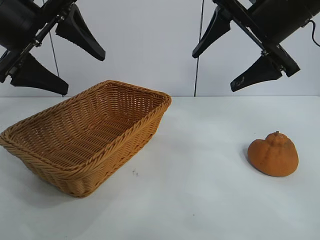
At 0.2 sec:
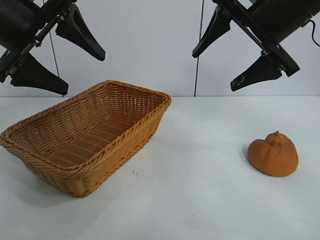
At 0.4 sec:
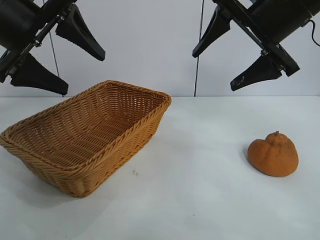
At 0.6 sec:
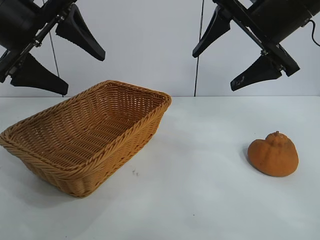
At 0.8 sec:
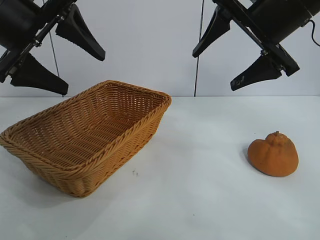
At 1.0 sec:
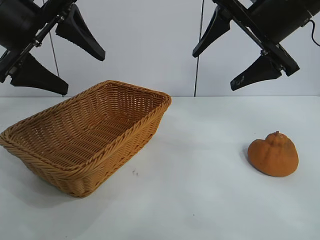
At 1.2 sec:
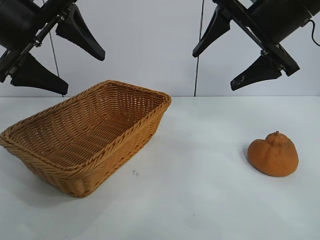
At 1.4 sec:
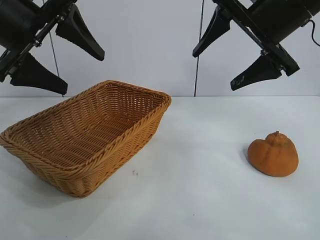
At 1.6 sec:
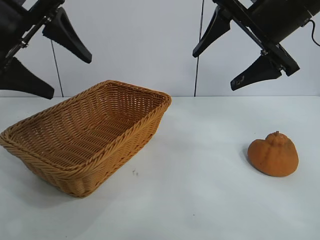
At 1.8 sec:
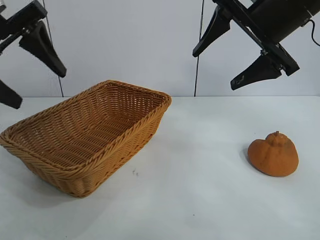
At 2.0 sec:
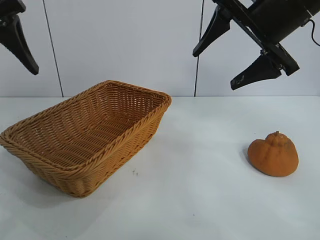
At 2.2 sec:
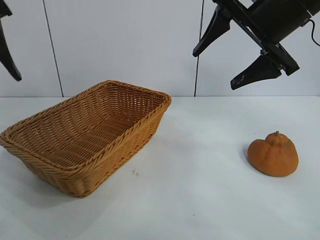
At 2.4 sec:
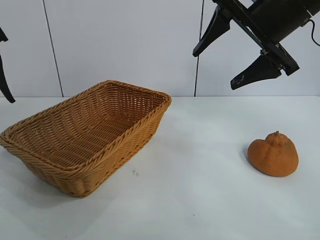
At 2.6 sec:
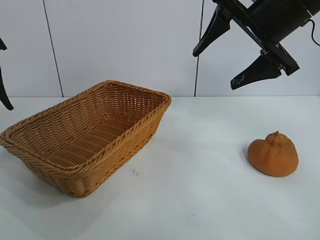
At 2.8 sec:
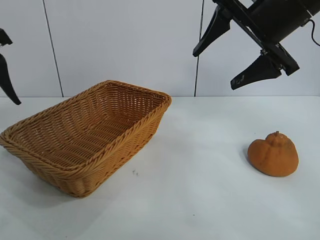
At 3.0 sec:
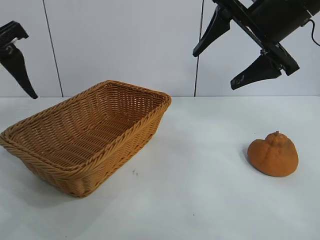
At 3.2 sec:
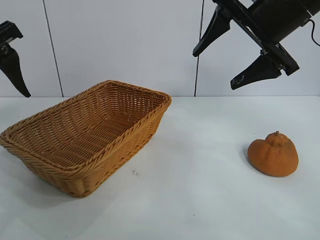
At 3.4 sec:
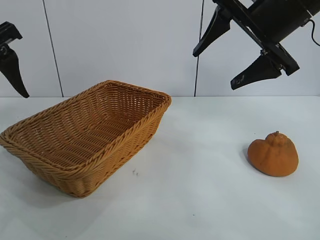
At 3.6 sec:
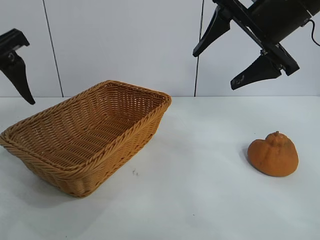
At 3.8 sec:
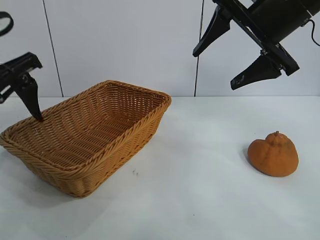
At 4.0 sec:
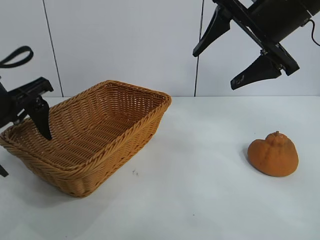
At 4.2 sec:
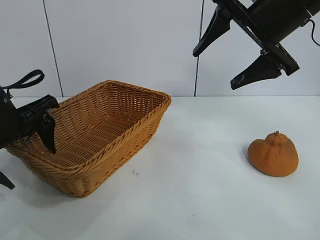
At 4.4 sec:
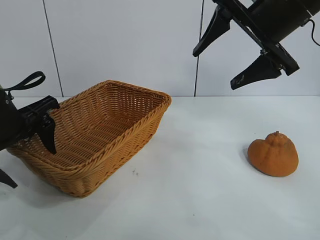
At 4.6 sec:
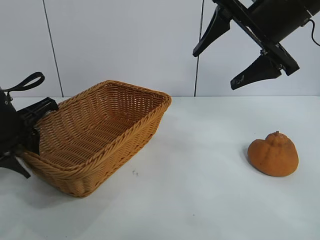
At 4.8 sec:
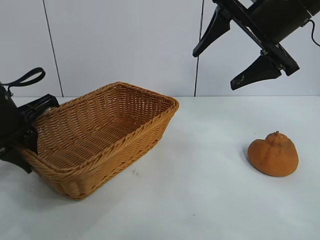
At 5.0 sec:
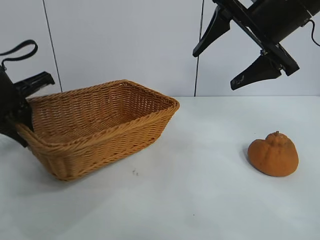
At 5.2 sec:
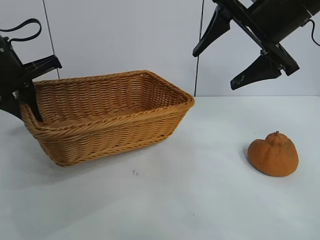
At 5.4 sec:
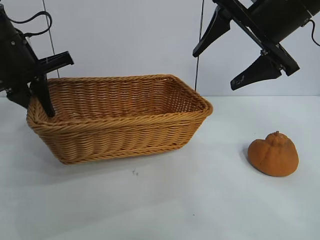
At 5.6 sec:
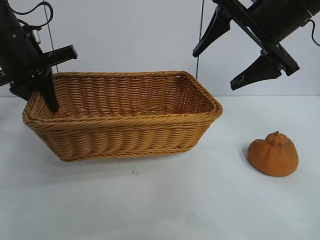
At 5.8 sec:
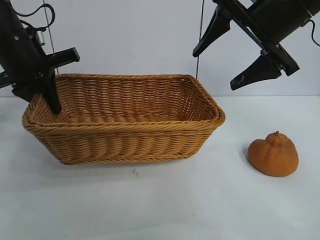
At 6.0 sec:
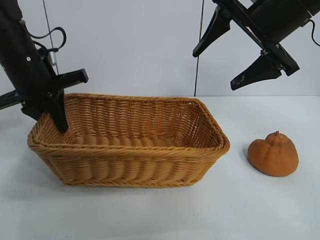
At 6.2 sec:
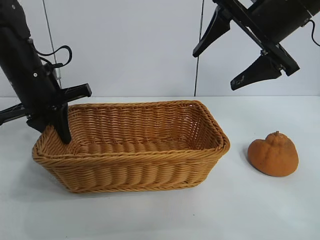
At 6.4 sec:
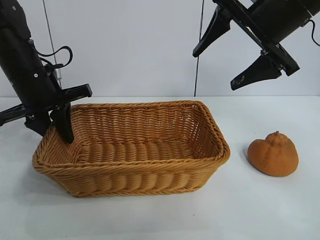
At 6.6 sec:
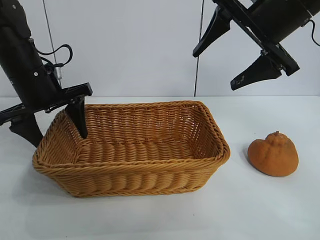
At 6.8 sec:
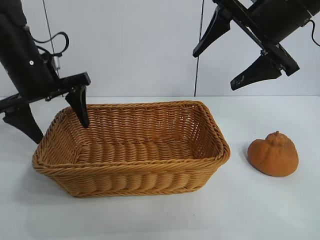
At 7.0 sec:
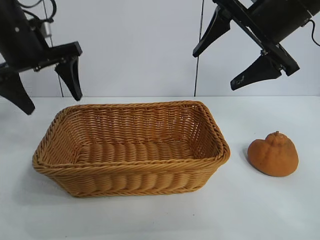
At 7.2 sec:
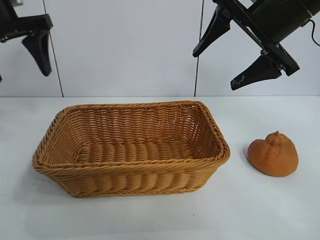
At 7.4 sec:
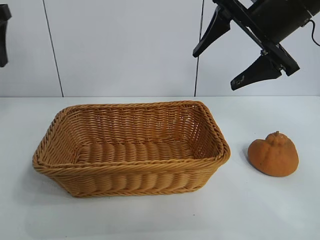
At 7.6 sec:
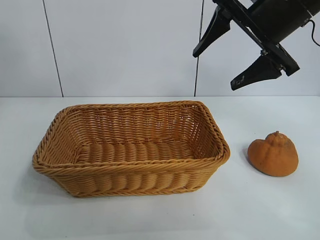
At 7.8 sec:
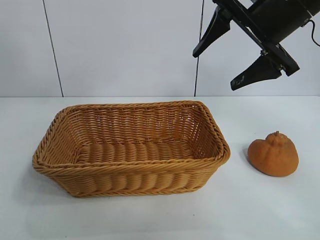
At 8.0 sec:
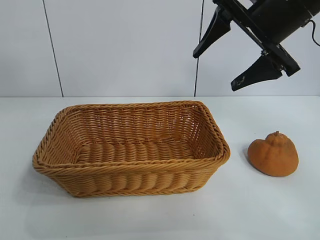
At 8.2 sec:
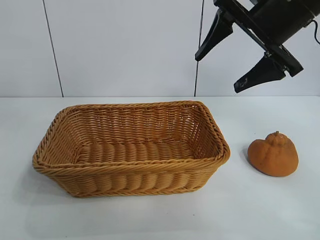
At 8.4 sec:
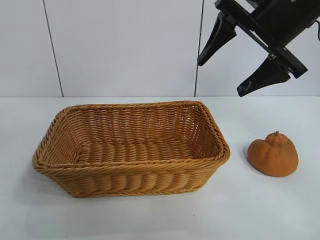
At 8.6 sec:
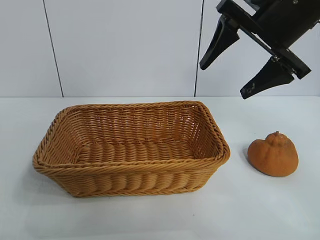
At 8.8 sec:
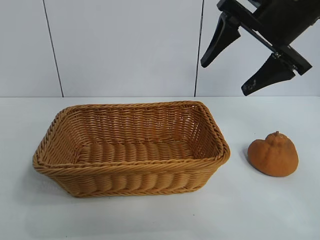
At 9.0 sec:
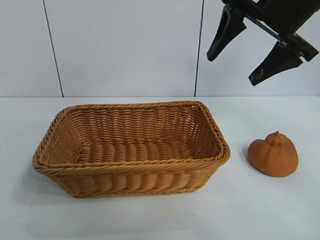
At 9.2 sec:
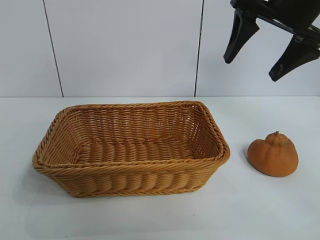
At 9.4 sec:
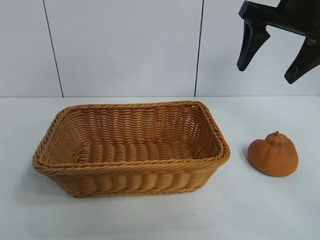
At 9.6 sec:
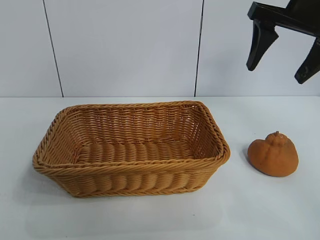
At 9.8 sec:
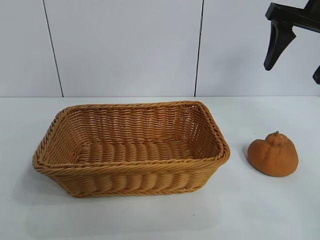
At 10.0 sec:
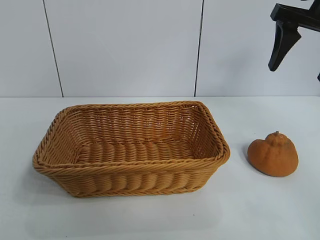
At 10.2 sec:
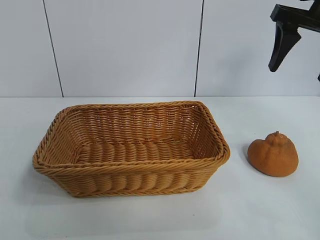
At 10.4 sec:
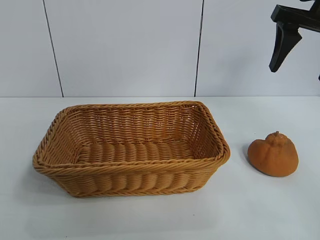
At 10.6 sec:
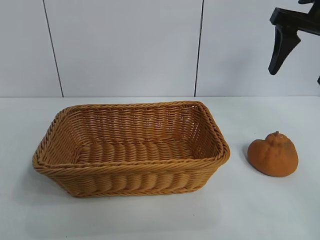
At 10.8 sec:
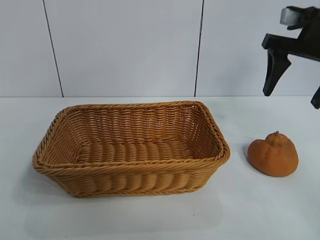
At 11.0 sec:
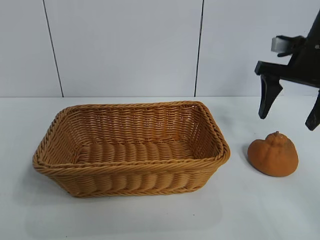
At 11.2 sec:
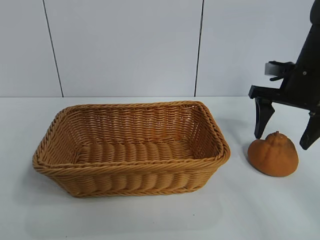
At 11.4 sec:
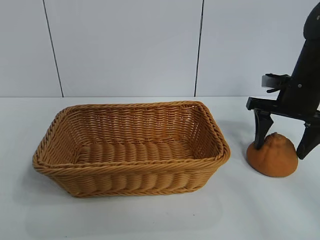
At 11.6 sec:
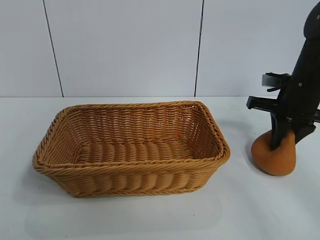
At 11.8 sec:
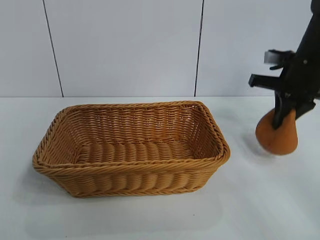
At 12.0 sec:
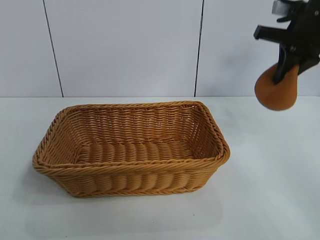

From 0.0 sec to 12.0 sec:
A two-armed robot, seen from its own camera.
Task of the whole recording: pick up the orange and put it into the basket.
Step, from 1.2 sec to 4.6 sec: Grasp the basket with left gripper.
Step, from 4.8 sec to 6.6 sec: Place the basket in the center of view with left gripper.
Step, from 7.0 sec to 11.4 sec: Grasp the orange with right gripper.

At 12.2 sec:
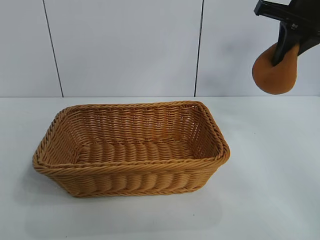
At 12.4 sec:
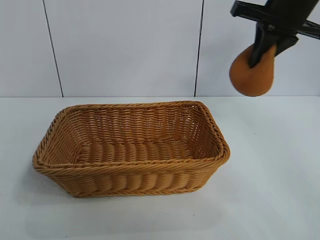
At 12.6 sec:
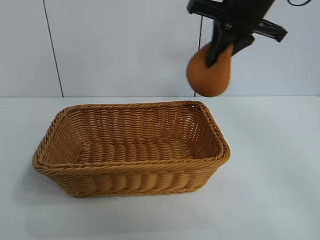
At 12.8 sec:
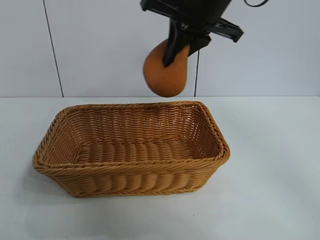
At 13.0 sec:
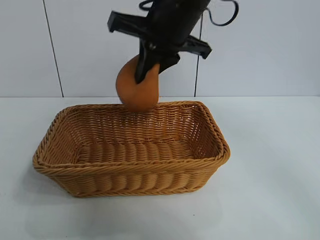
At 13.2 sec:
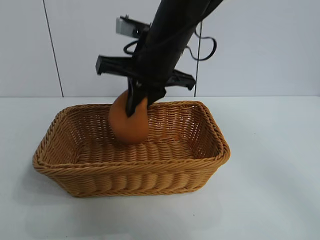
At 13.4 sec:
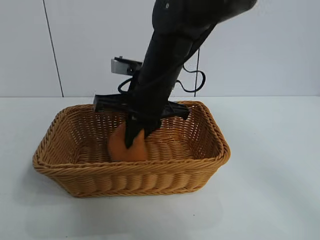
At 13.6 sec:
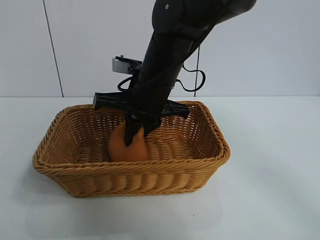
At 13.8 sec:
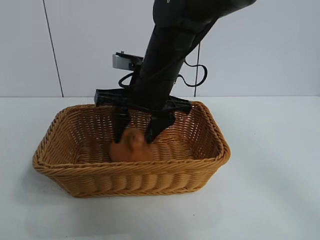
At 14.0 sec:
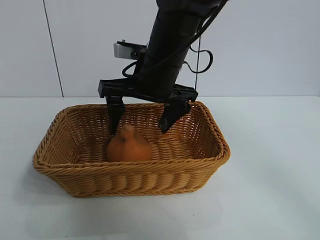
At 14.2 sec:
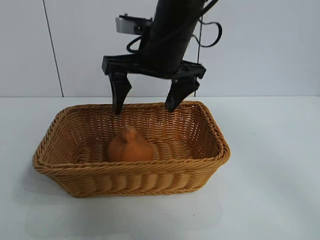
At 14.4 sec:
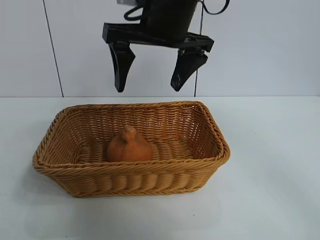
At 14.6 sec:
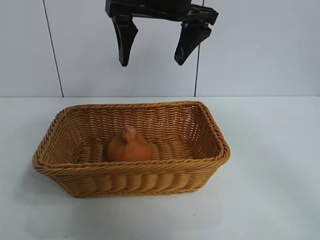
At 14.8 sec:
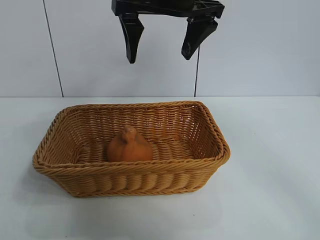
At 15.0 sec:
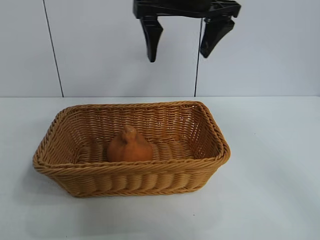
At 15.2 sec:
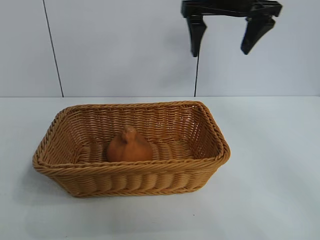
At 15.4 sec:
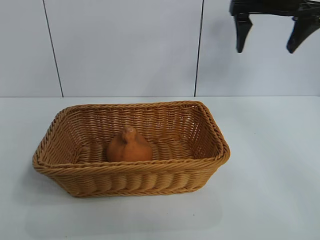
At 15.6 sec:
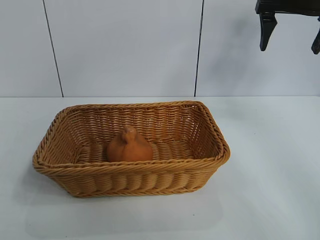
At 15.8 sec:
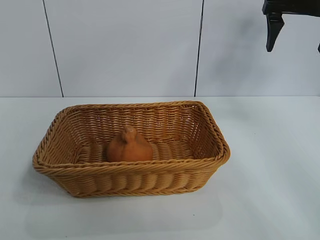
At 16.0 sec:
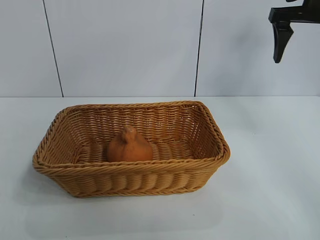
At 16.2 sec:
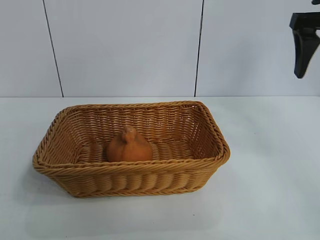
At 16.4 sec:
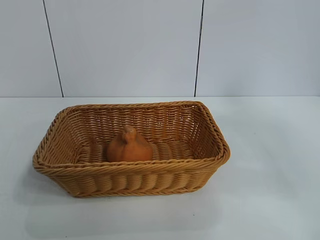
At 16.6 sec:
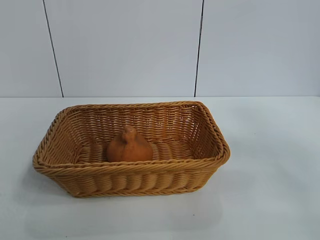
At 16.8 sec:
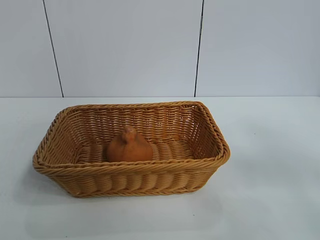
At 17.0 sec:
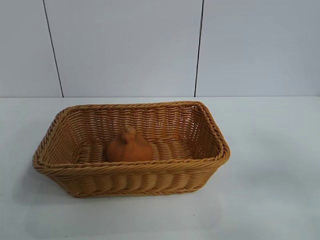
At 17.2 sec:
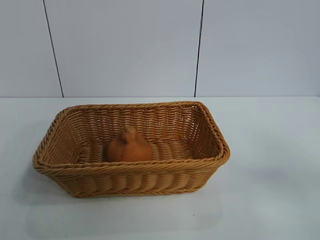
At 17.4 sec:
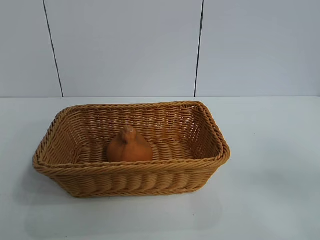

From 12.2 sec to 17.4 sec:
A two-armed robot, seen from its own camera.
Task of the whole recording: pick up the orange and put it into the basket.
Step, from 12.2 sec to 14.4 sec: Place the orange in the basket with right gripper.
